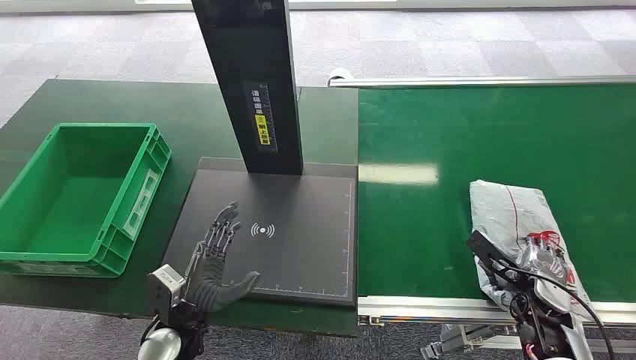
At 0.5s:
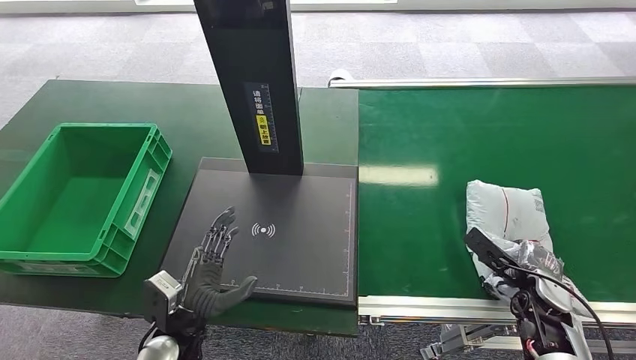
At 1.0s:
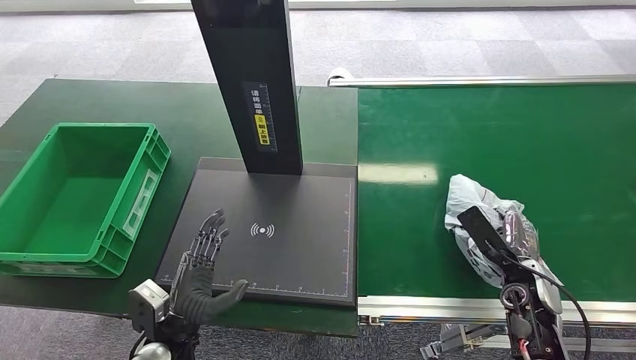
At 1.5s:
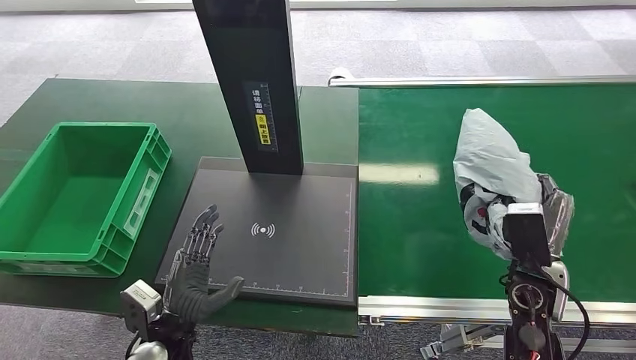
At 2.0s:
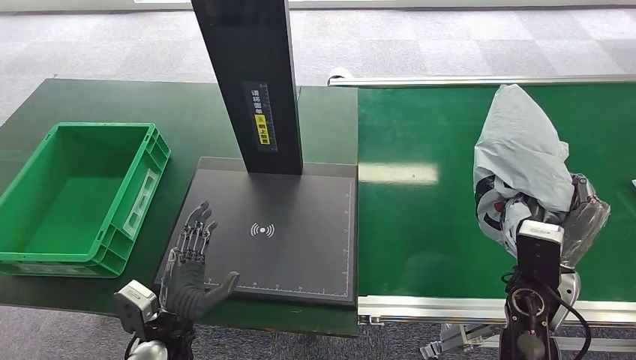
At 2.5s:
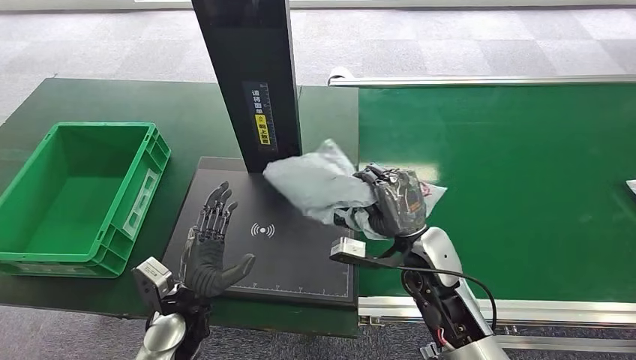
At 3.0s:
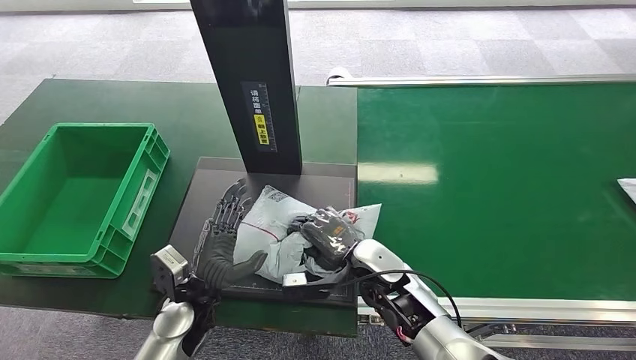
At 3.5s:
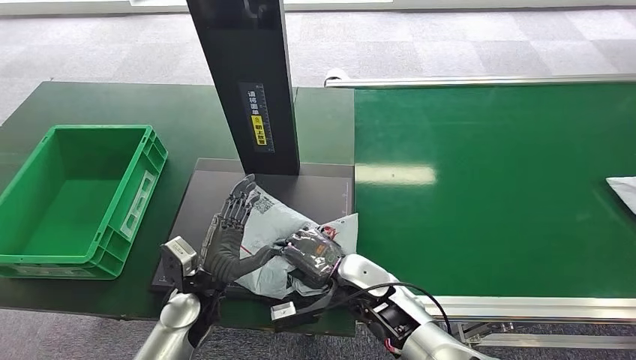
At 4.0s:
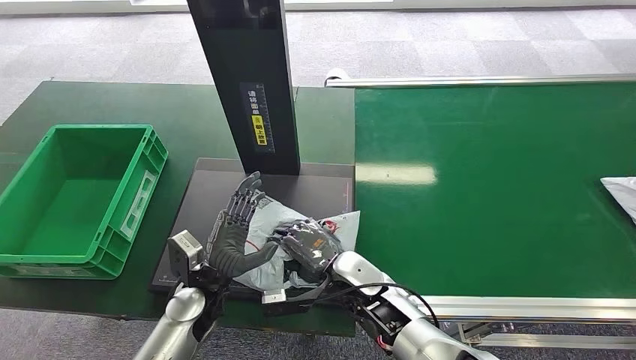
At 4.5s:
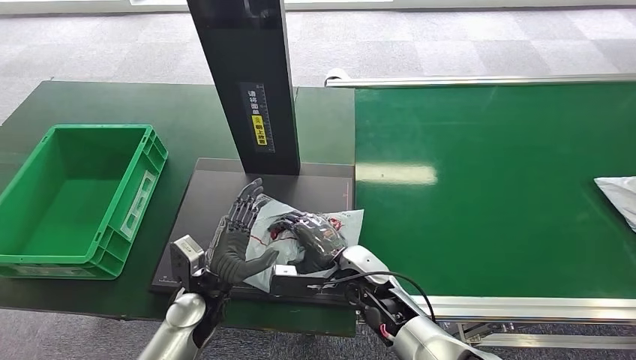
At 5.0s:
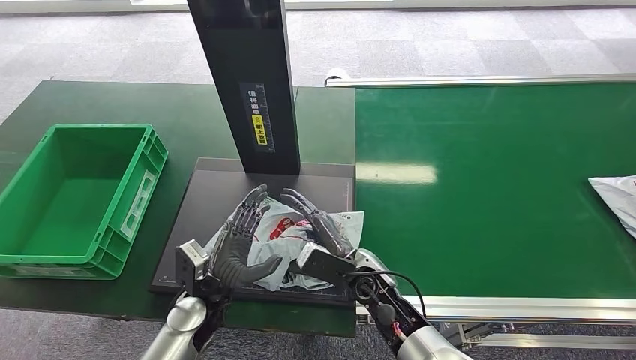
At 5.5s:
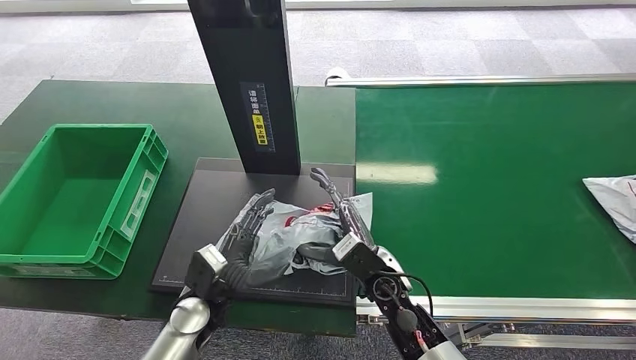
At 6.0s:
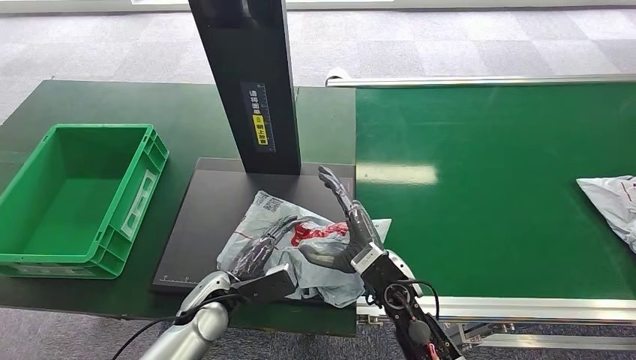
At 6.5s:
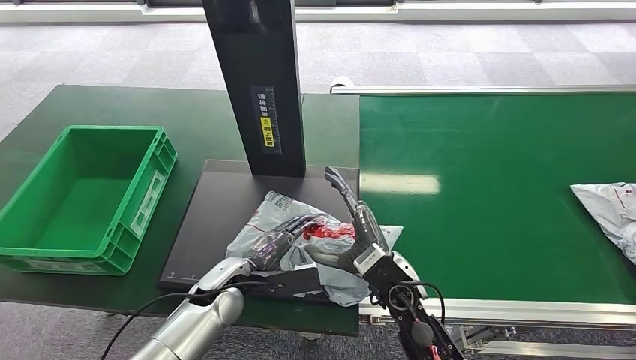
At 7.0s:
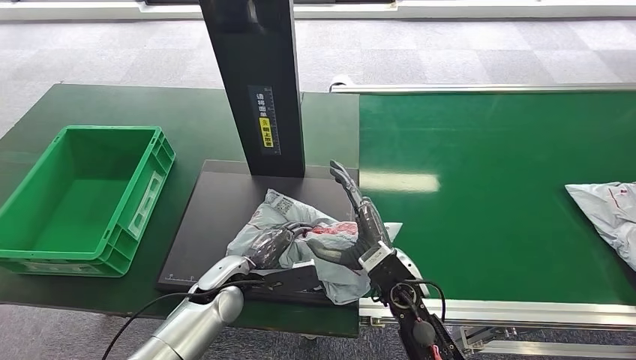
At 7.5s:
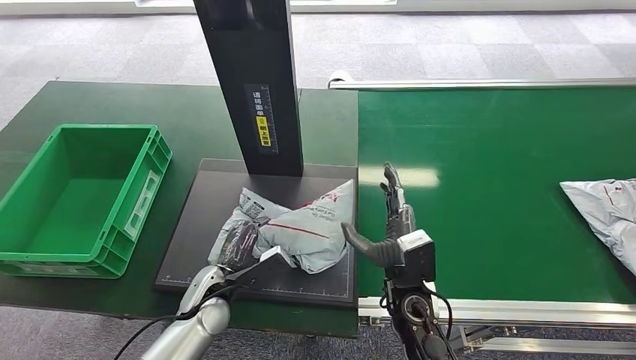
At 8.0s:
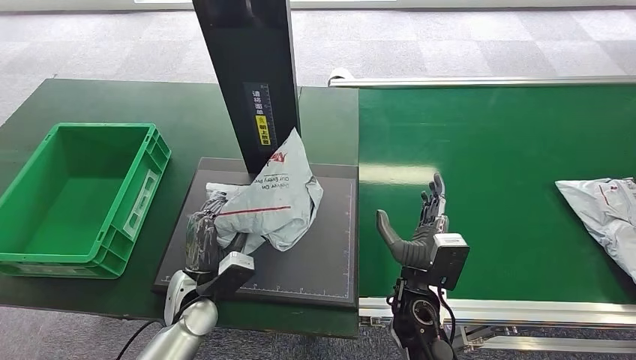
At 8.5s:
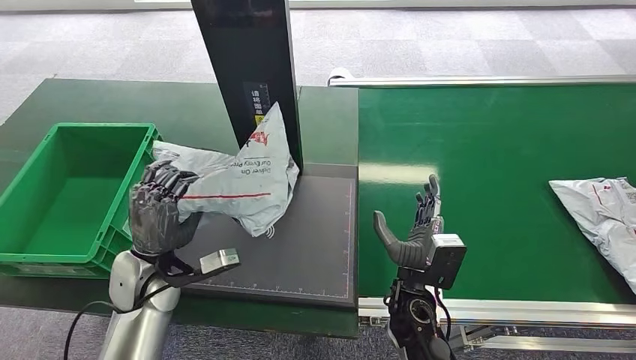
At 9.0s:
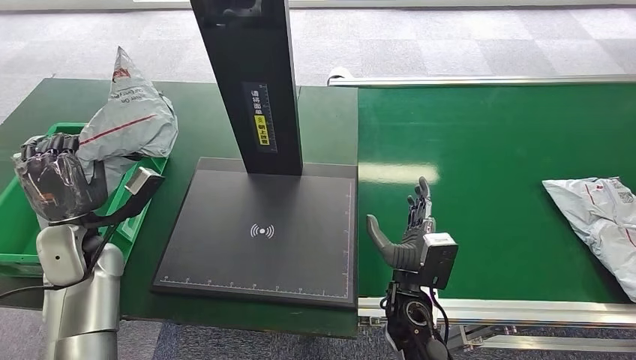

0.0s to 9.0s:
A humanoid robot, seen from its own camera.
Step, 0.0s to 2.0s: Pick up the package from the conveyor belt.
Step, 2.5s to 5.5s: Place the package onto the inbound machine.
Step, 6.0s to 8.5s: Pick up the package from the inbound machine.

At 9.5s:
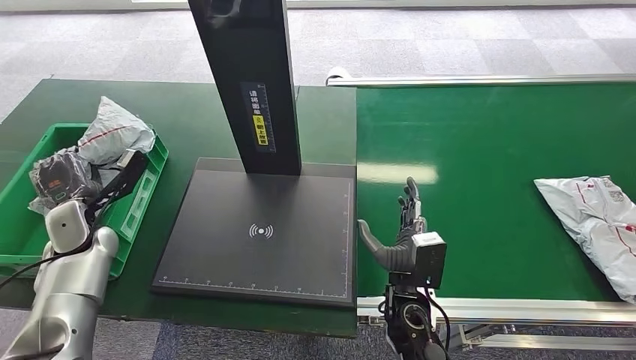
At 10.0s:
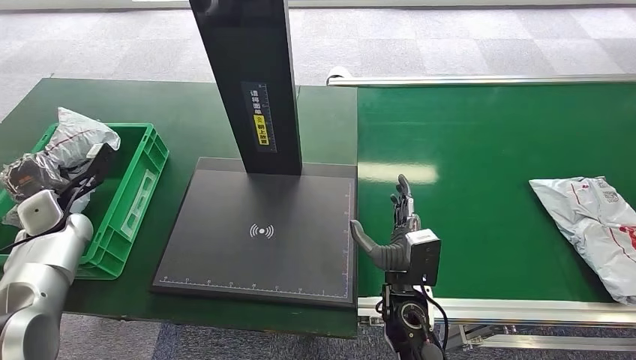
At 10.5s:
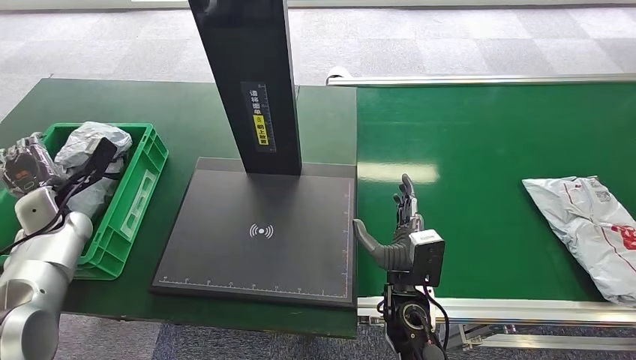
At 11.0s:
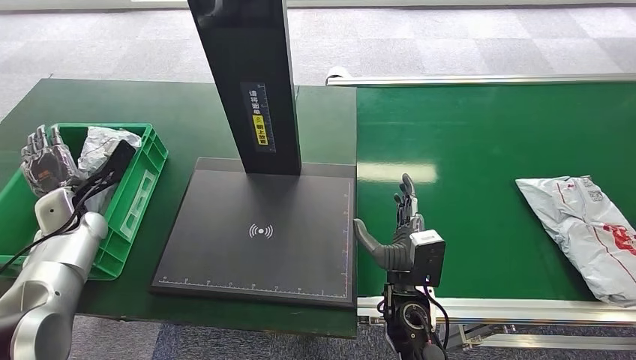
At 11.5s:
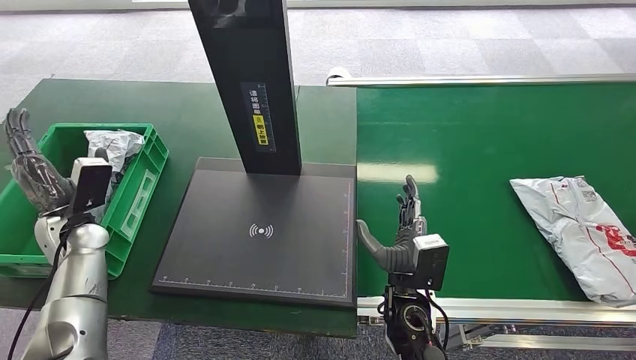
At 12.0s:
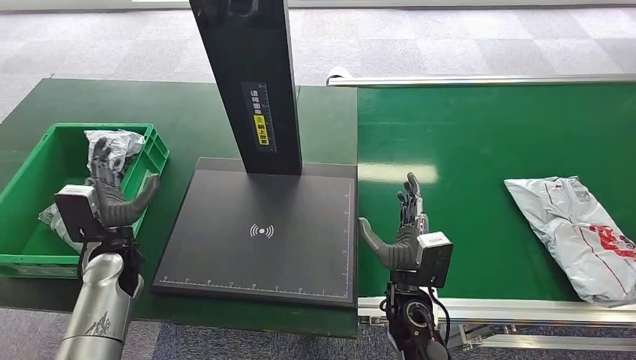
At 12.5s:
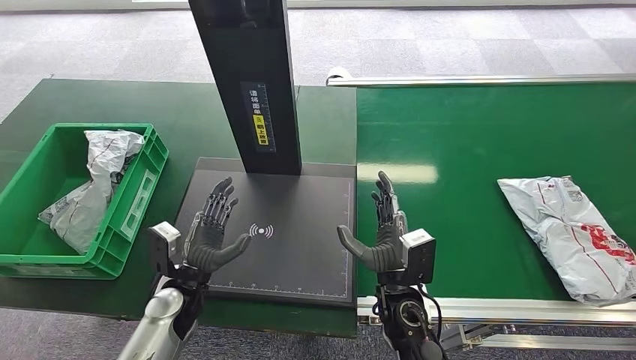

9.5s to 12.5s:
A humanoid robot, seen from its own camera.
Step, 9.5s to 12.5s: Place the package into the parcel locker.
11.0s to 12.5s: The left hand goes about 25 cm to the right, backward and downward.

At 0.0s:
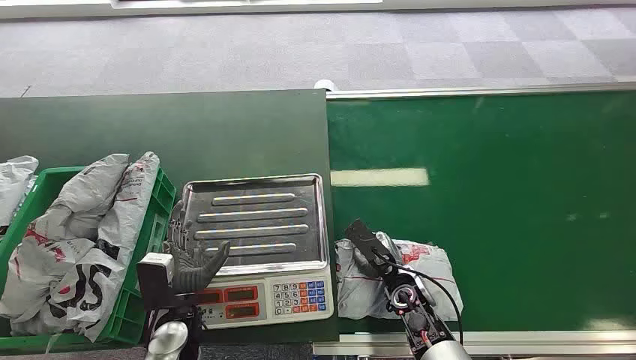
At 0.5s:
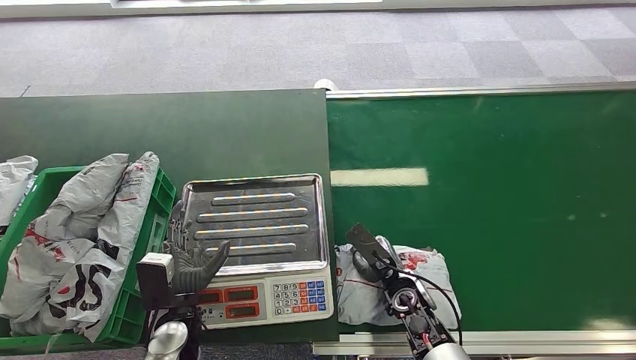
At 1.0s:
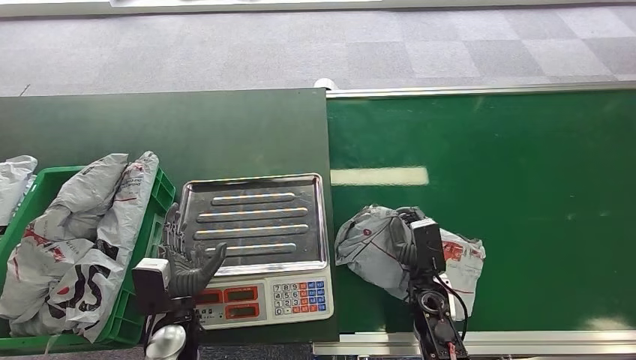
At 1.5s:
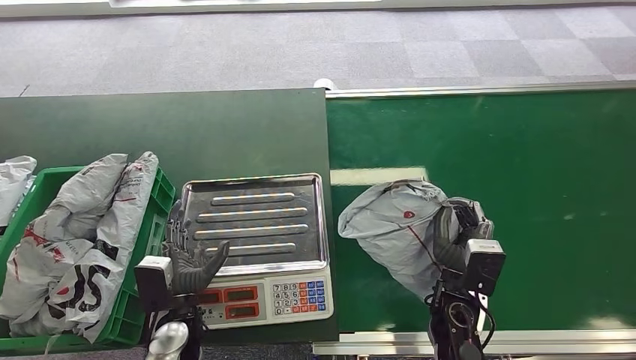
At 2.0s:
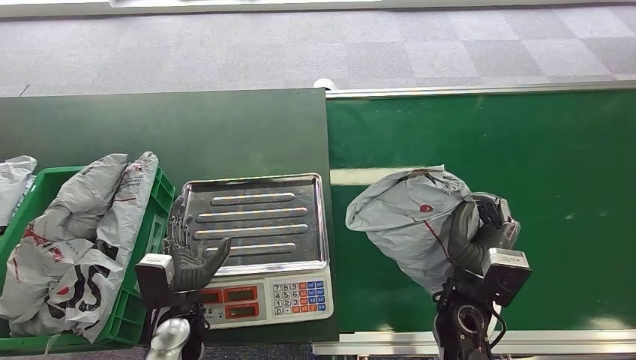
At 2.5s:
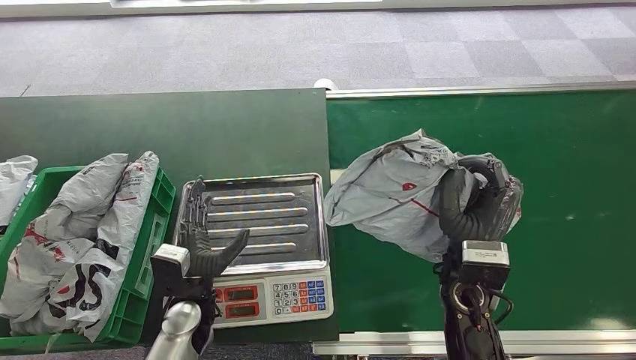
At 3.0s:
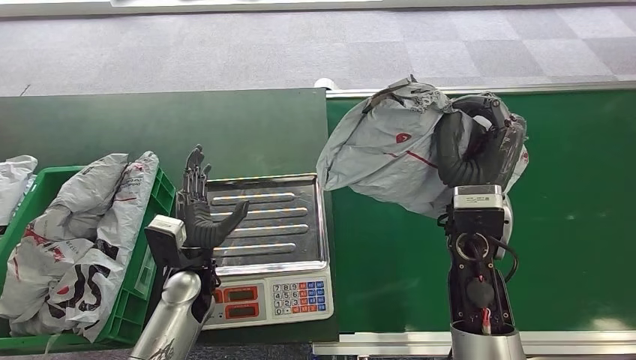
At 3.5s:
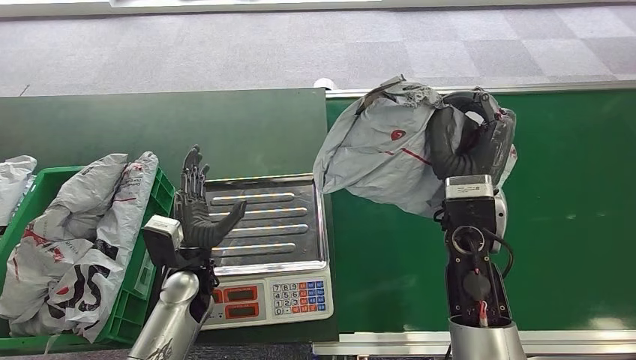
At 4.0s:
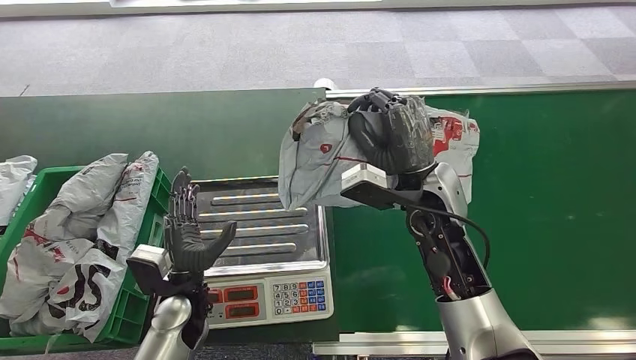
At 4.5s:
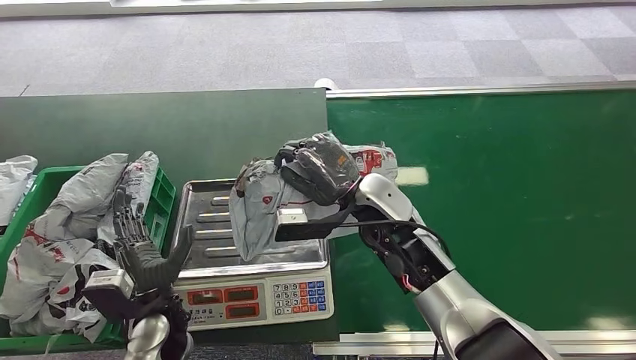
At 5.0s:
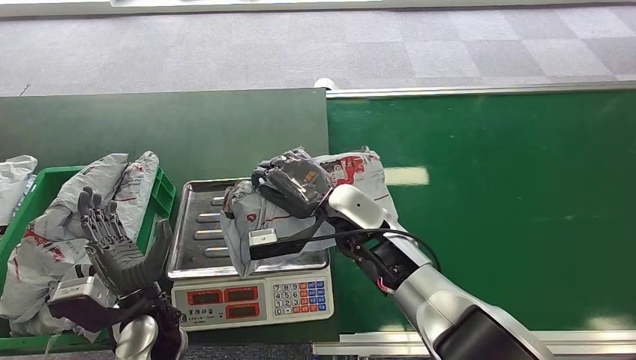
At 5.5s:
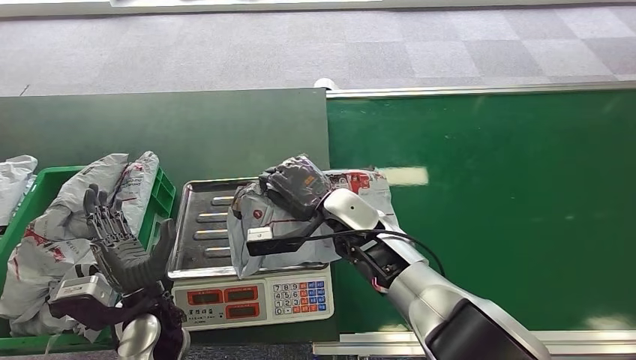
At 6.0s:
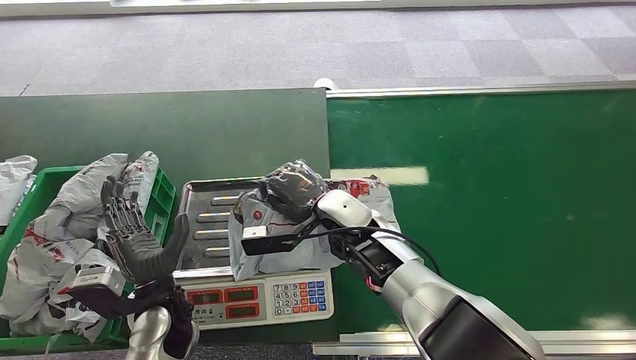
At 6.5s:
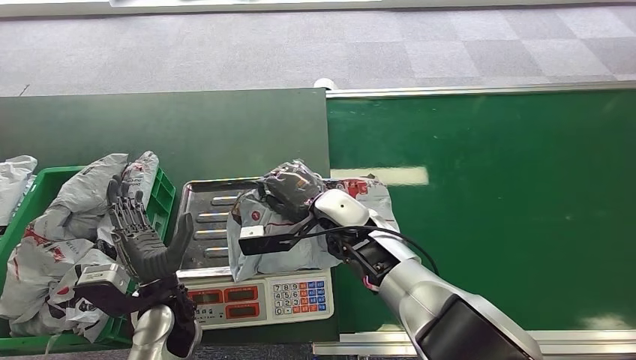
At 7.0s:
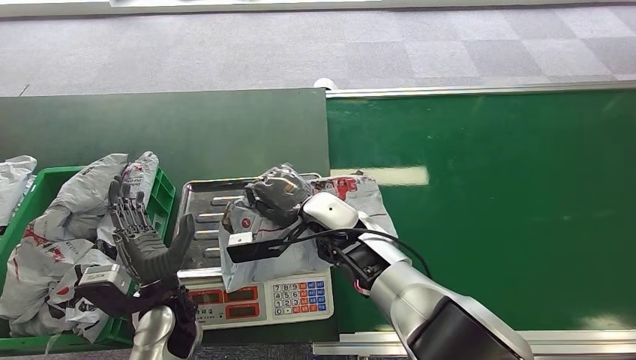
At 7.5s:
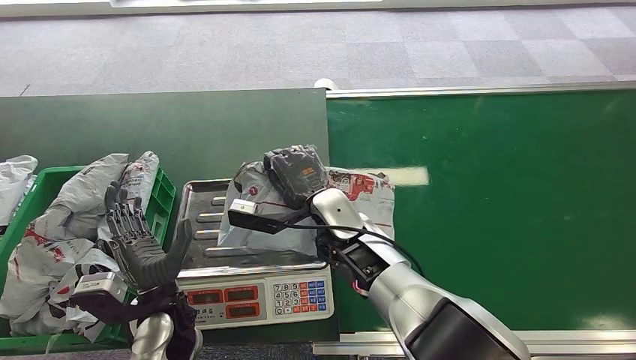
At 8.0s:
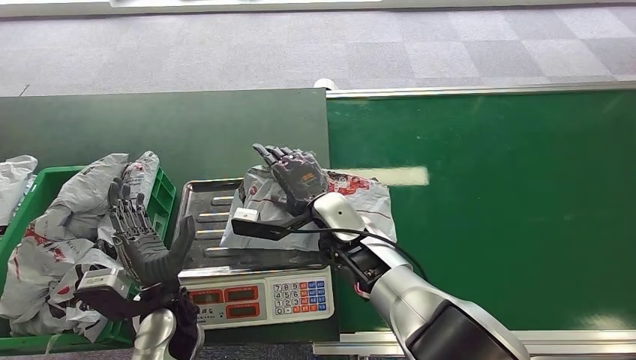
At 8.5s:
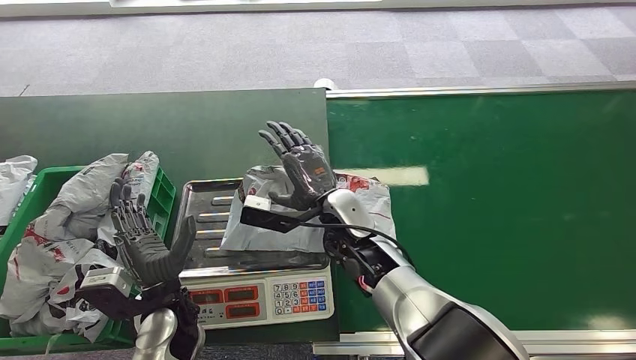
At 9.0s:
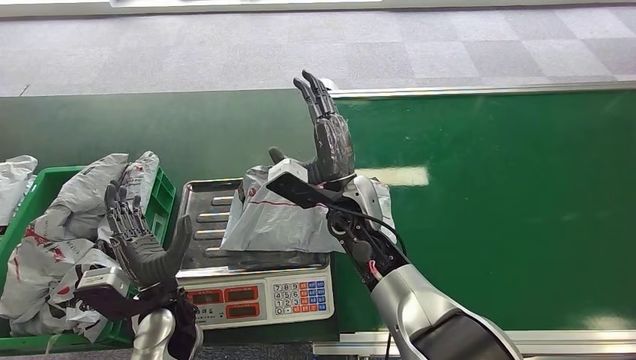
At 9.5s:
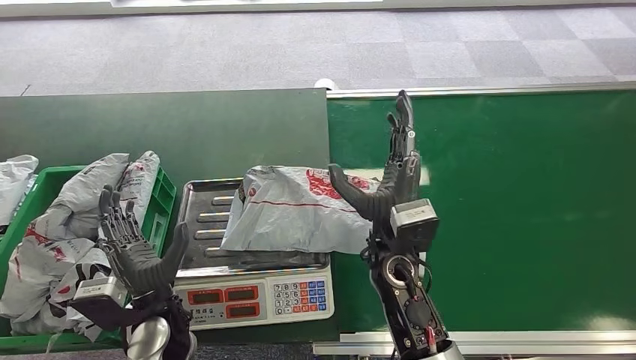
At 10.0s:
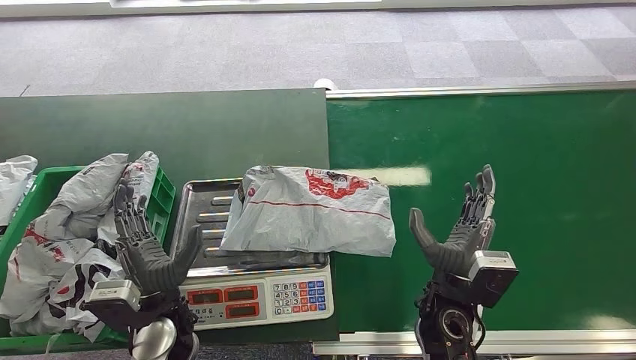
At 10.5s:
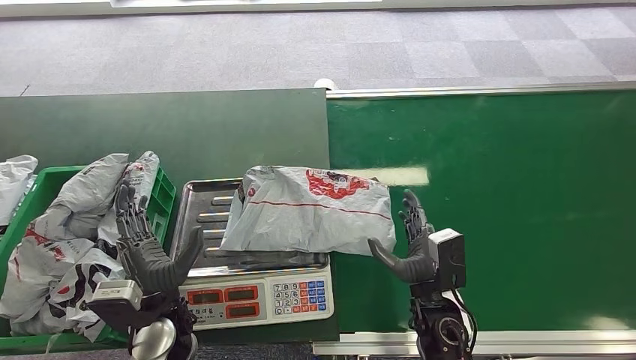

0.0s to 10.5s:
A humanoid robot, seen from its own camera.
Step, 0.0s to 2.0s: Pick up the package from the conveyor belt.
Step, 5.0s to 8.0s: Place the package onto the inbound machine.
2.0s to 4.0s: The right hand goes roughly 20 cm upward and forward.
8.5s to 10.5s: The right hand travels backward, to the right and downward by roughly 20 cm.
